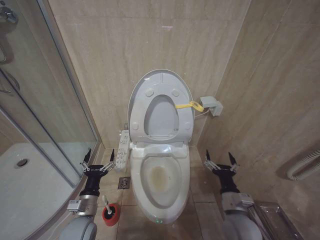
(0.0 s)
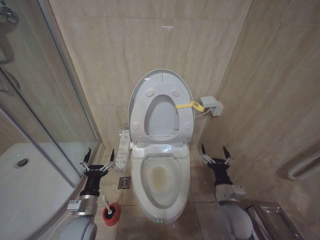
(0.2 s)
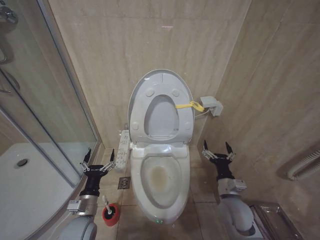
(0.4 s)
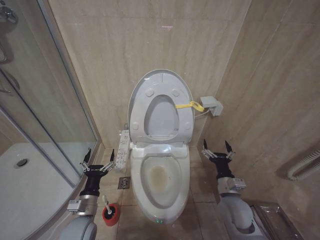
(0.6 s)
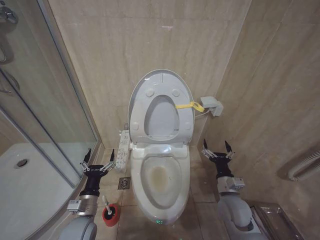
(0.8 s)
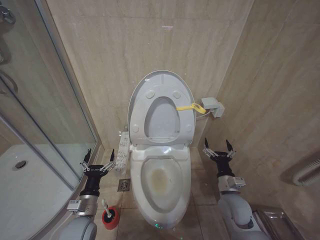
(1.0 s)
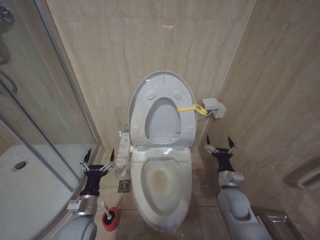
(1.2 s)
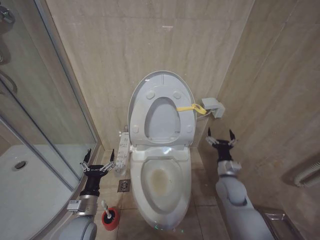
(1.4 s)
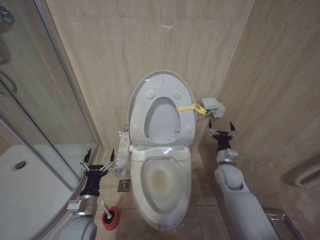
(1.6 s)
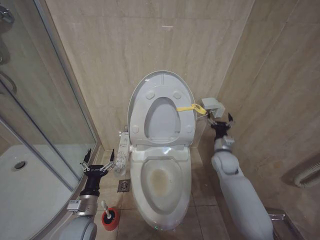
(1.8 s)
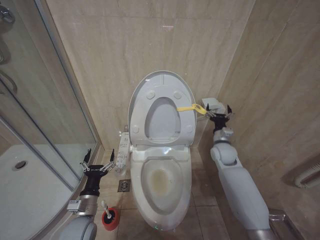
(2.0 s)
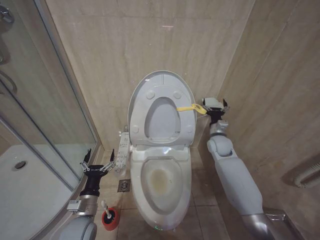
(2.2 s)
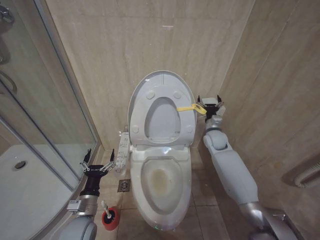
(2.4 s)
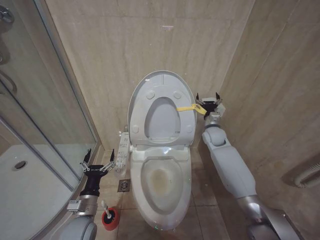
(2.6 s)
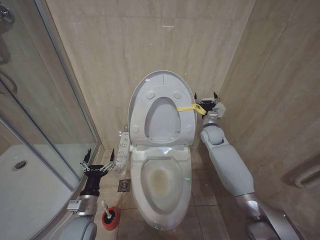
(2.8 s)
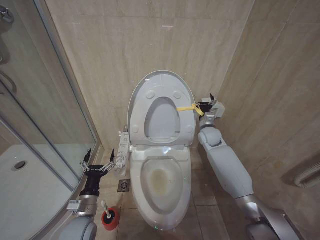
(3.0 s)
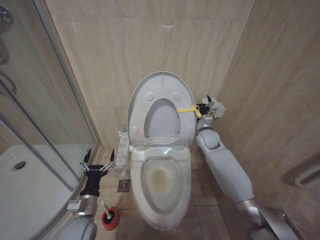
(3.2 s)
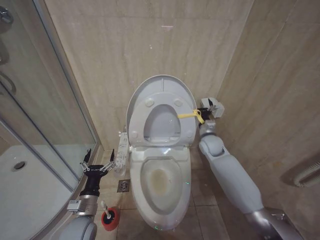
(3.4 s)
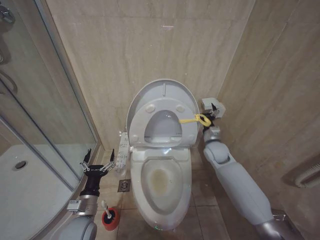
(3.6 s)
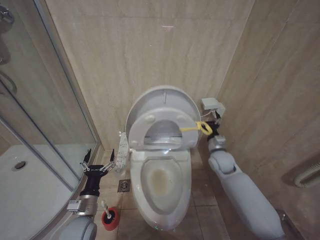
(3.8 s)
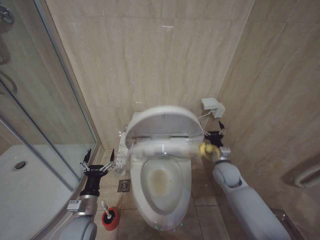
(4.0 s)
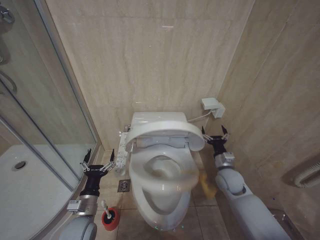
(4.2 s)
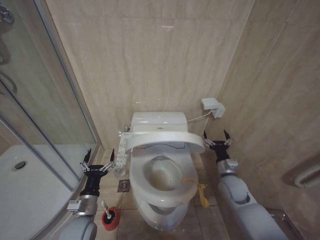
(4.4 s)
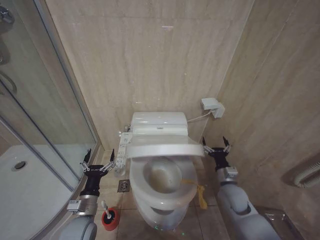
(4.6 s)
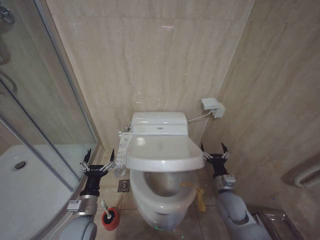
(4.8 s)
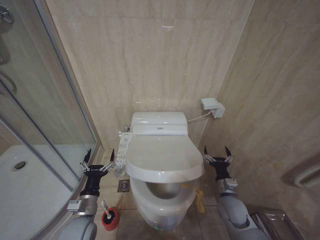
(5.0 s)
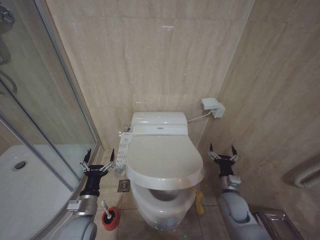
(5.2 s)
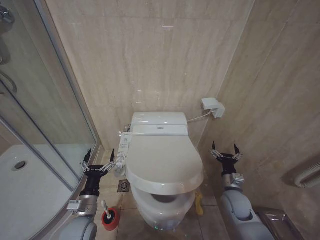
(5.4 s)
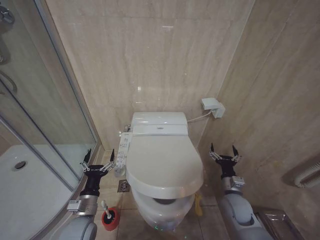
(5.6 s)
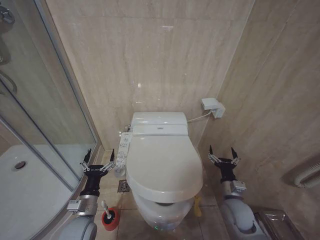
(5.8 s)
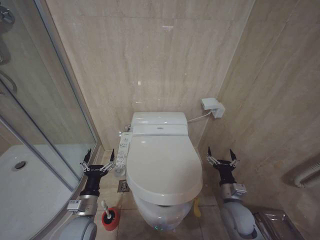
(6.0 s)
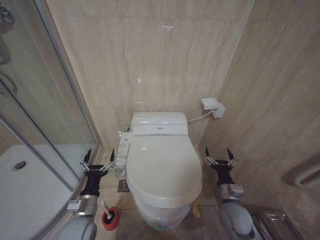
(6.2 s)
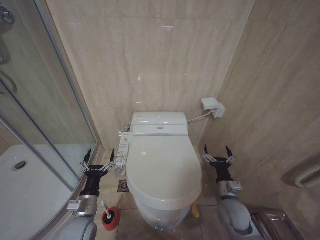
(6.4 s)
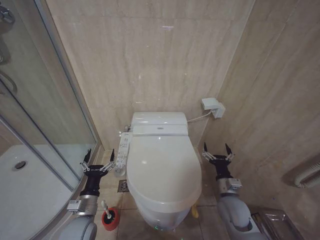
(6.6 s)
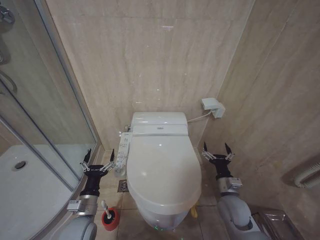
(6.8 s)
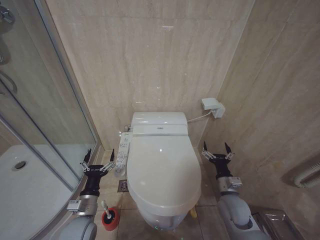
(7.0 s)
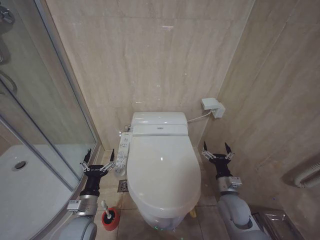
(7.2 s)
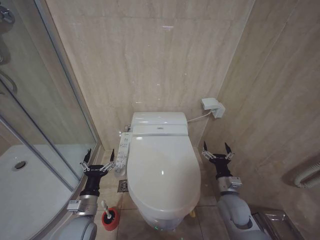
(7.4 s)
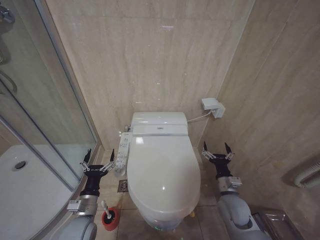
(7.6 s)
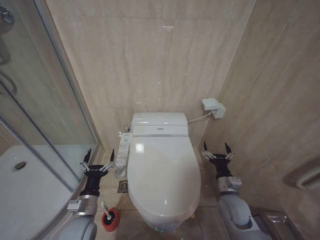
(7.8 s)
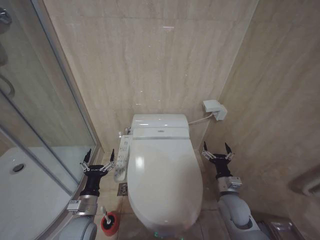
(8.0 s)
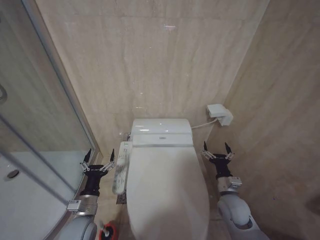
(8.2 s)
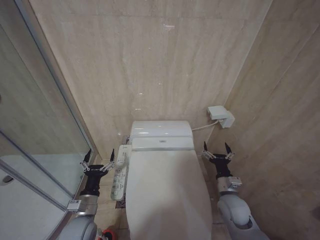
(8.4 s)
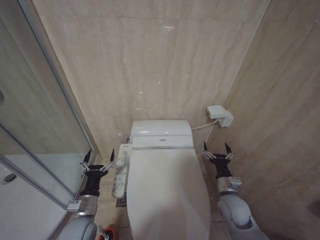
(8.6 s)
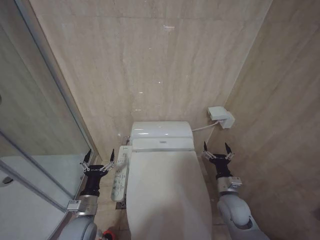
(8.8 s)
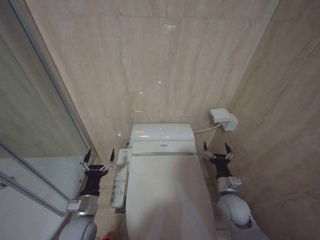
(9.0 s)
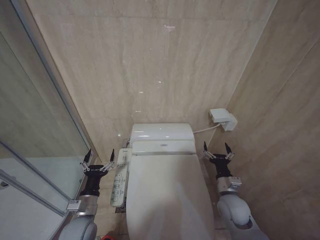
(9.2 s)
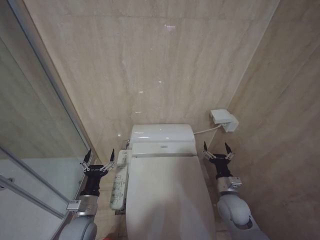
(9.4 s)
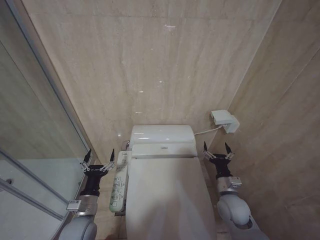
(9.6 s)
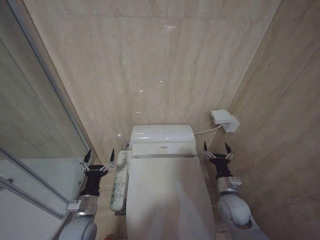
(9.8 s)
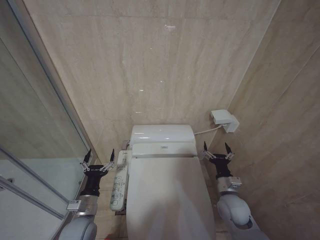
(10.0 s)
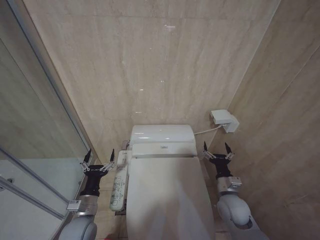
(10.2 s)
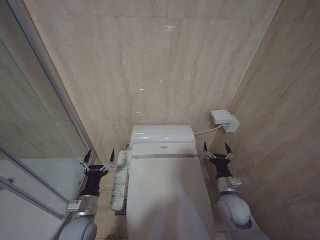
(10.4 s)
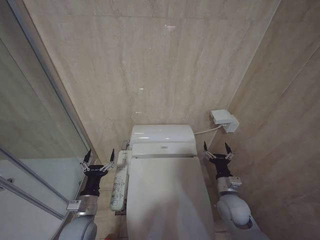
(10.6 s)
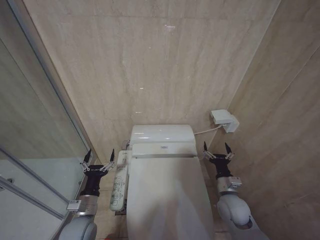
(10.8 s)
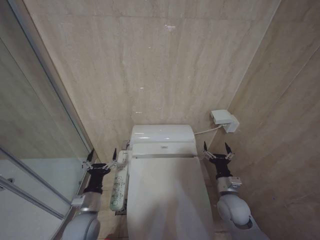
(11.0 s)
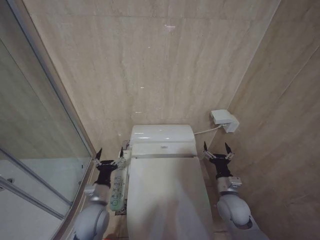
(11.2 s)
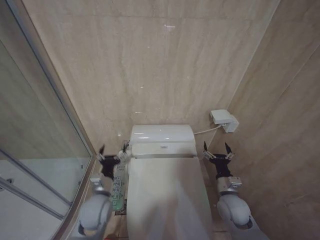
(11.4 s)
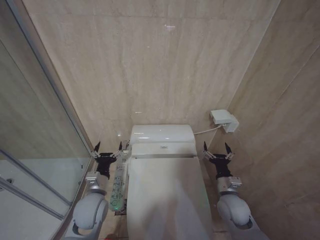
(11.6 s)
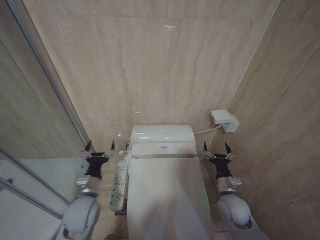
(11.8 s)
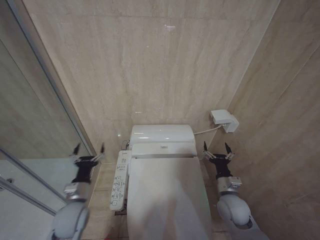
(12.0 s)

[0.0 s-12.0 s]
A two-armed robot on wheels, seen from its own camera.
Task of the whole recording: Open the toilet lid, clean the toilet bowl with a toilet brush, close the toilet lid, and flush.
0.0 to 1.6 s: The right gripper moves forward, about 15 cm.
1.6 to 3.0 s: The right gripper moves forward and upward, approximately 20 cm.
3.0 to 4.4 s: The right gripper moves backward and downward, roughly 20 cm.
4.4 to 6.0 s: The right gripper shifts some 10 cm backward.
6.0 to 7.6 s: The grippers make only small movements.
7.6 to 10.4 s: Both grippers stay put.
10.4 to 12.0 s: The left gripper changes place by roughly 5 cm.

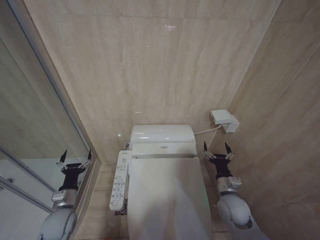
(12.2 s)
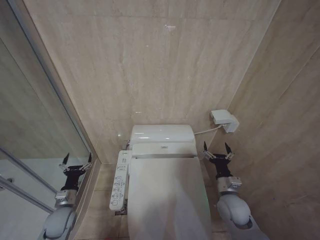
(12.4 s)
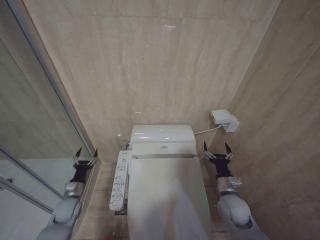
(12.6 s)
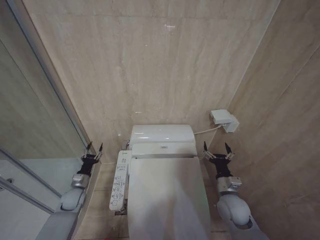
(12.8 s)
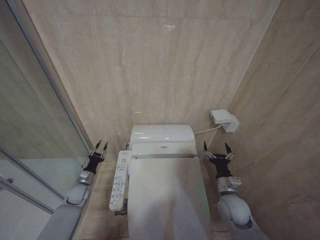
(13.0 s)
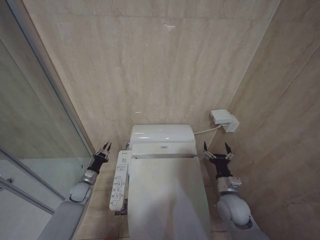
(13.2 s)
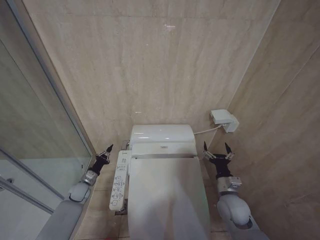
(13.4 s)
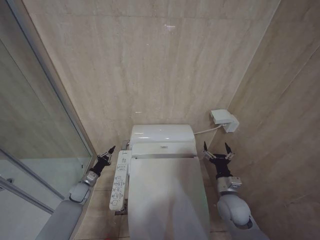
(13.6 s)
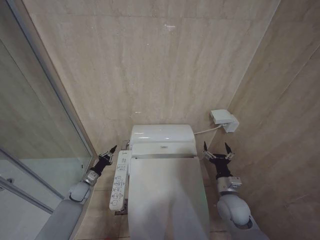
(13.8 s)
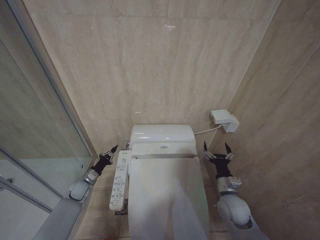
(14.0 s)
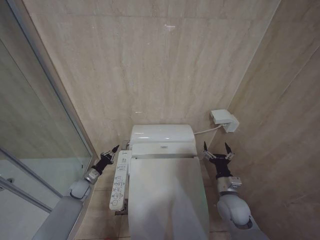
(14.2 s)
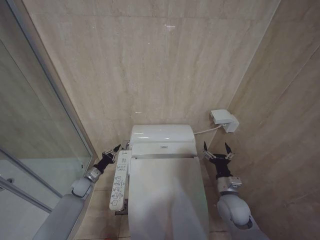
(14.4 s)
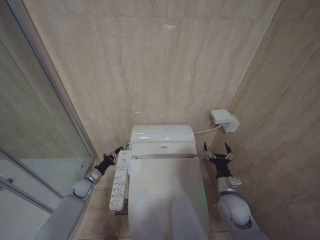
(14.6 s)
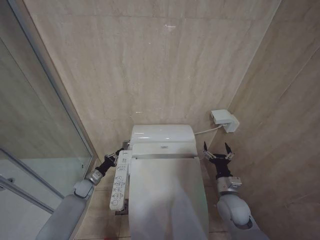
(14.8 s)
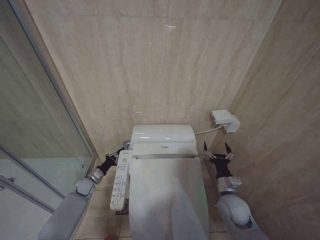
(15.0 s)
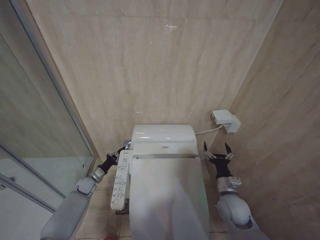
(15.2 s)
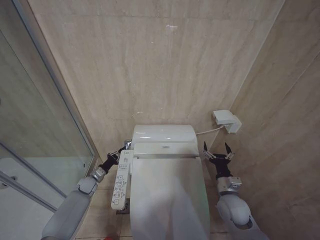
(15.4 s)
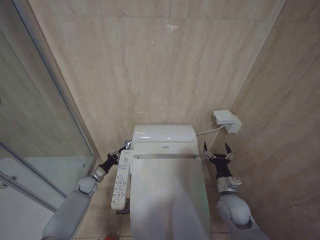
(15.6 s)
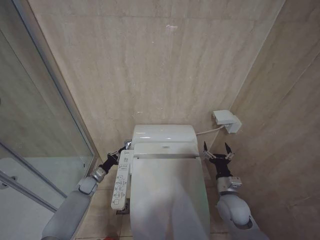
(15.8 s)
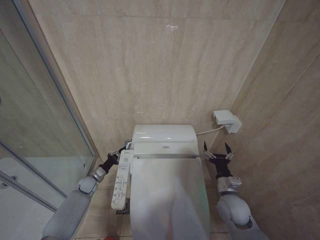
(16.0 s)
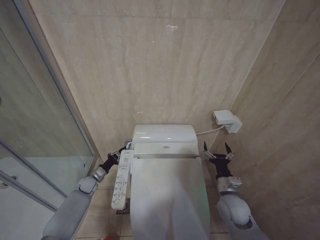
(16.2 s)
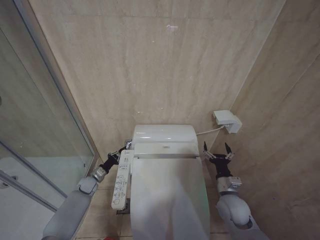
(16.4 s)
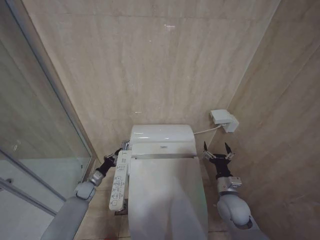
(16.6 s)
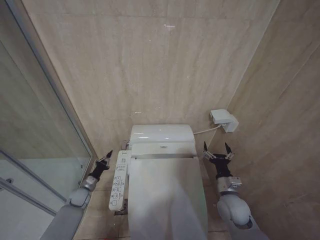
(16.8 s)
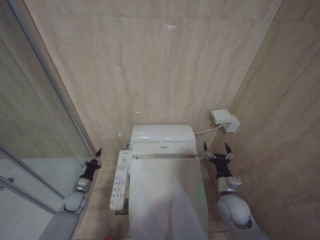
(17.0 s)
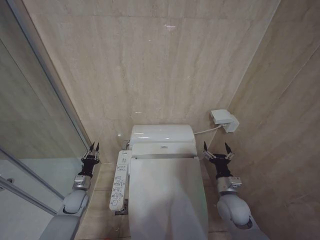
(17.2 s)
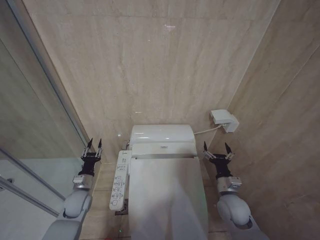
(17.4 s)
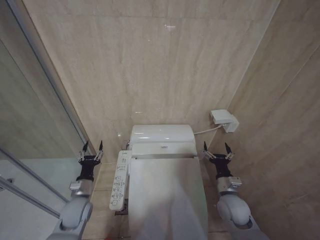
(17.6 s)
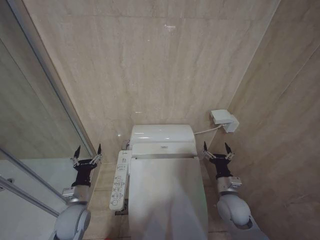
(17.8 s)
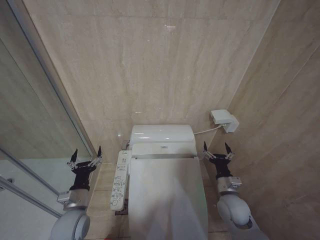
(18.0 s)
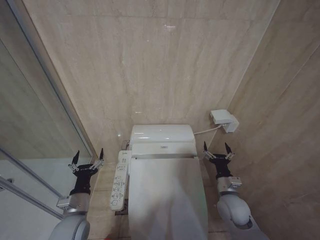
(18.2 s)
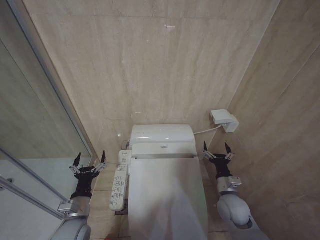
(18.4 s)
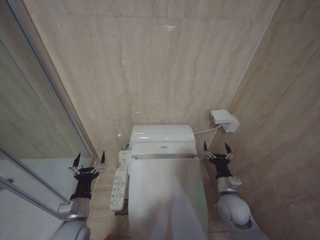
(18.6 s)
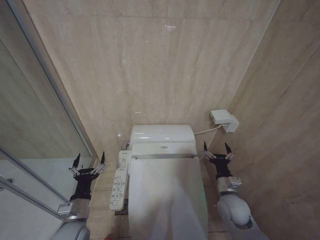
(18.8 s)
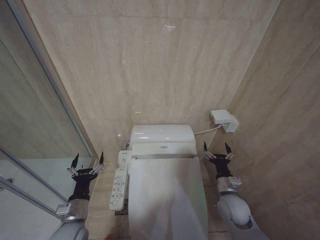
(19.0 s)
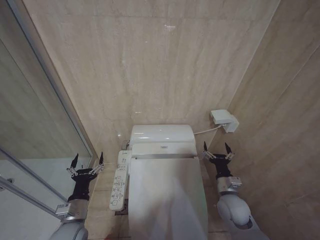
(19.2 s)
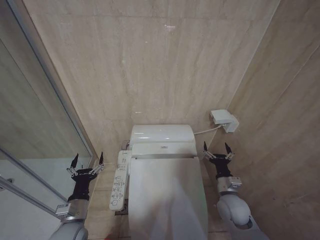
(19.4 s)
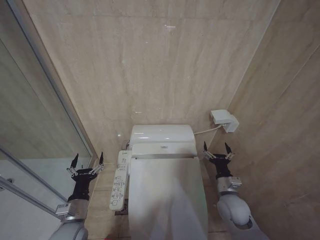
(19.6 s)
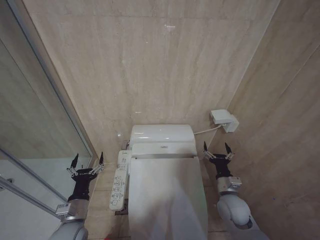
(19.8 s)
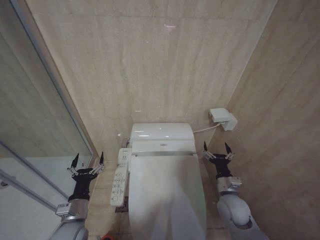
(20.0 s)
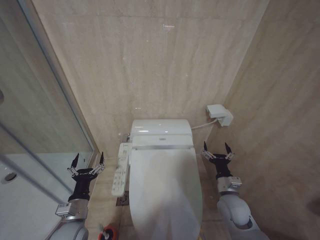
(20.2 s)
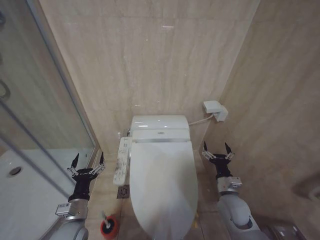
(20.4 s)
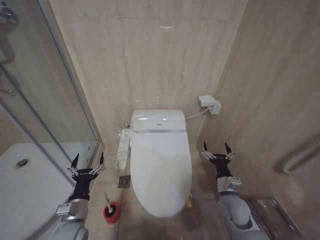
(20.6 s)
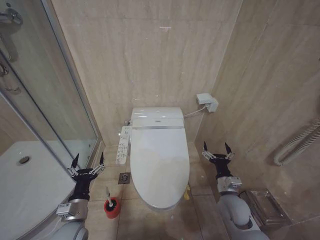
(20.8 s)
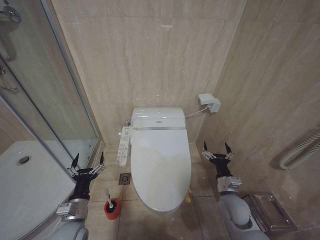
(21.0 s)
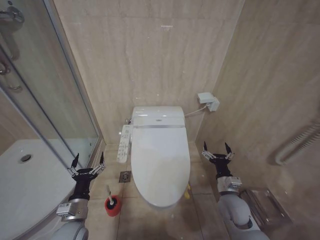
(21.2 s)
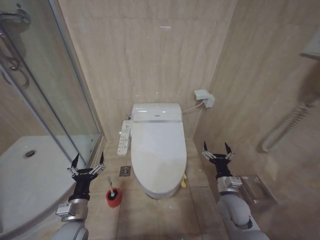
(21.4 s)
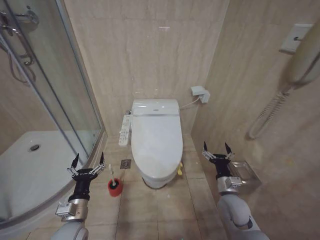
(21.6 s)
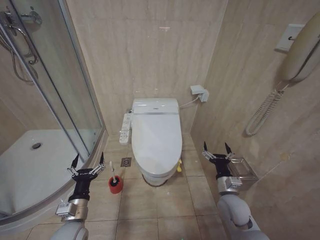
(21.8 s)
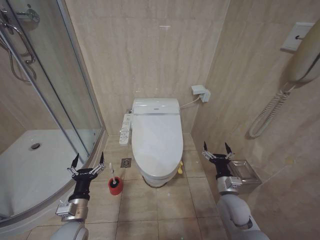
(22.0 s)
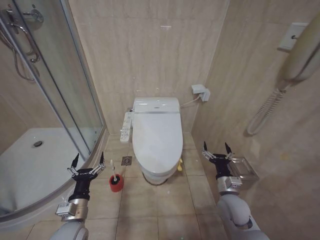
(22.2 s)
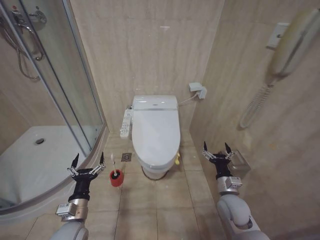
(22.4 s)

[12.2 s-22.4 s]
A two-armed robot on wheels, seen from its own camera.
Task of the whole recording: Open the toilet lid, clean the toilet bowl with a toilet brush, close the toilet lid, and flush.
12.2 to 13.6 s: The left gripper heads forward and downward, covering some 20 cm, and closes.
13.6 to 15.2 s: The grippers stay close to where they were, moving slightly.
15.2 to 16.6 s: Both grippers stay put.
16.6 to 18.0 s: The left gripper goes roughly 25 cm backward and upward, and opens its fingers.
18.0 to 19.4 s: There are only small adjustments of the grippers.
19.4 to 21.0 s: The two grippers keep their place.
